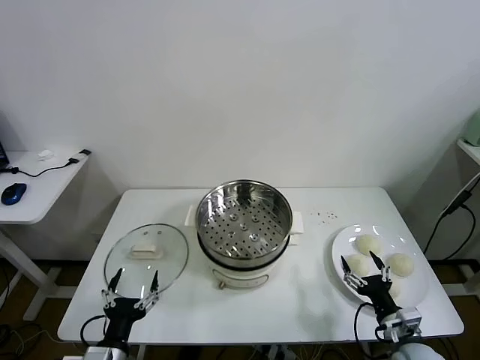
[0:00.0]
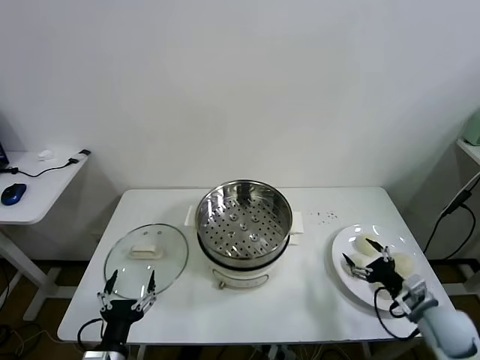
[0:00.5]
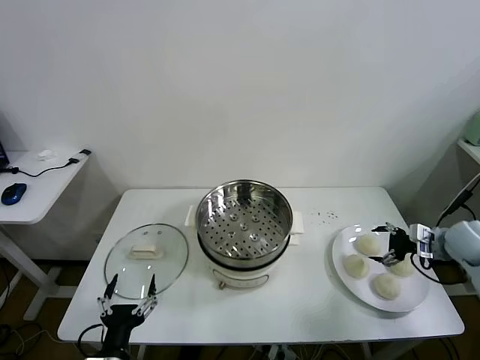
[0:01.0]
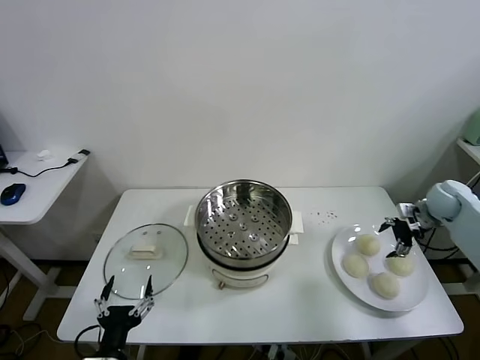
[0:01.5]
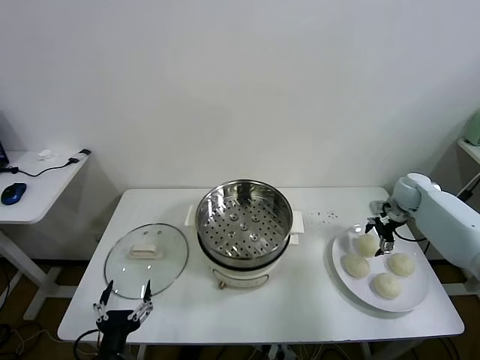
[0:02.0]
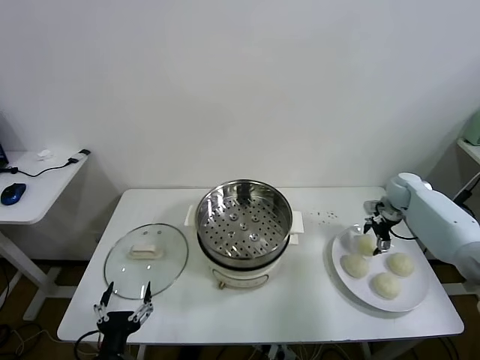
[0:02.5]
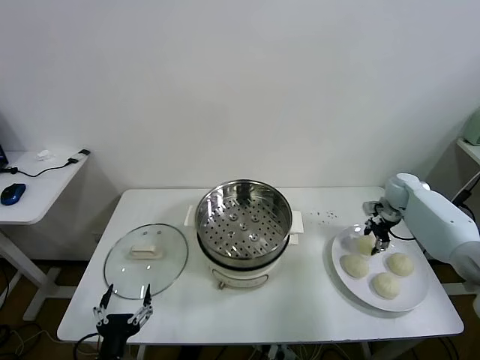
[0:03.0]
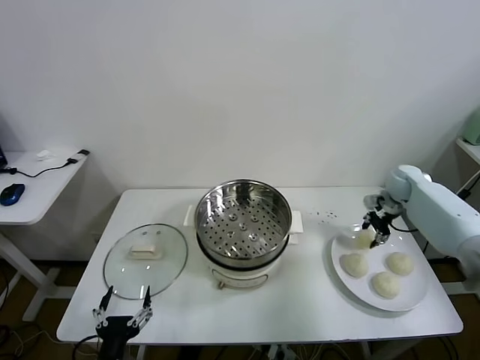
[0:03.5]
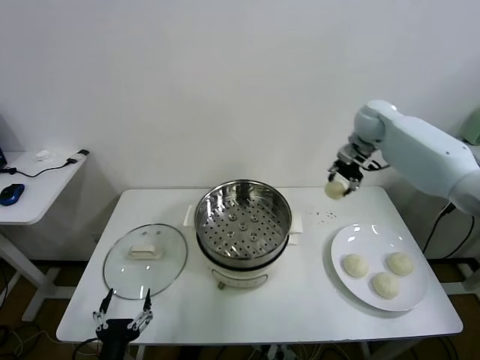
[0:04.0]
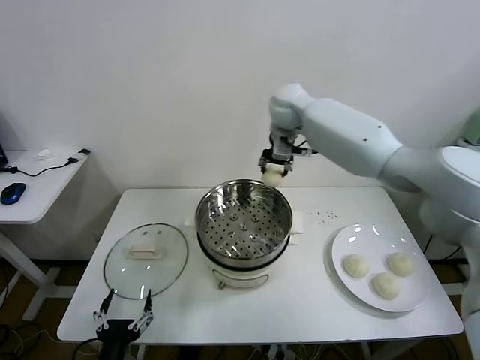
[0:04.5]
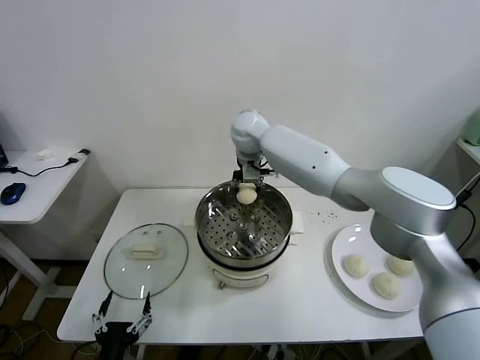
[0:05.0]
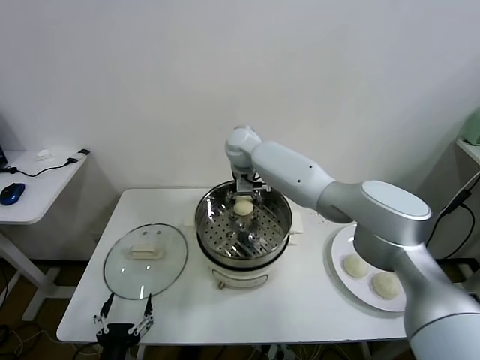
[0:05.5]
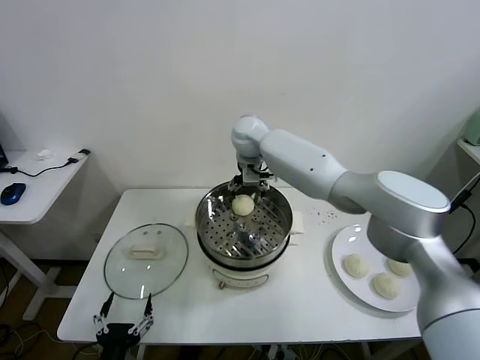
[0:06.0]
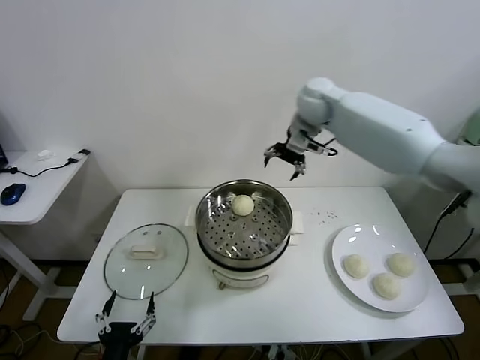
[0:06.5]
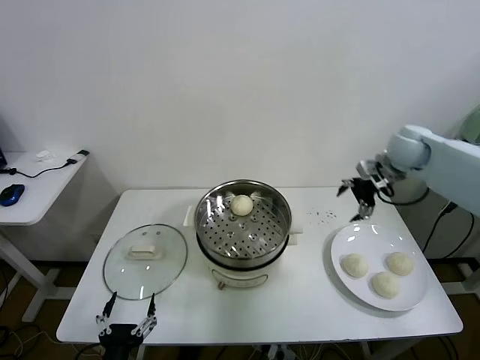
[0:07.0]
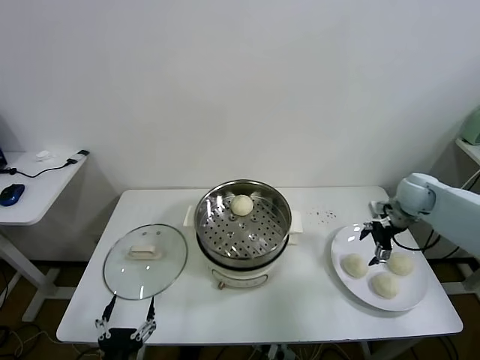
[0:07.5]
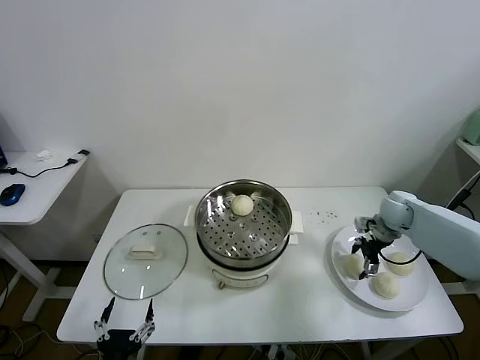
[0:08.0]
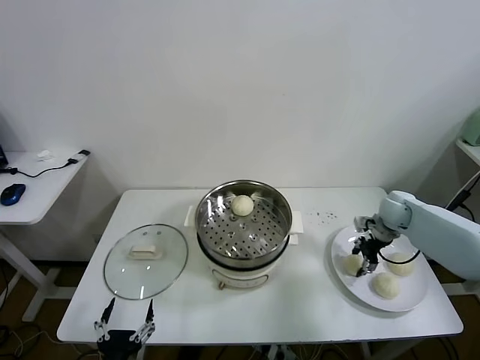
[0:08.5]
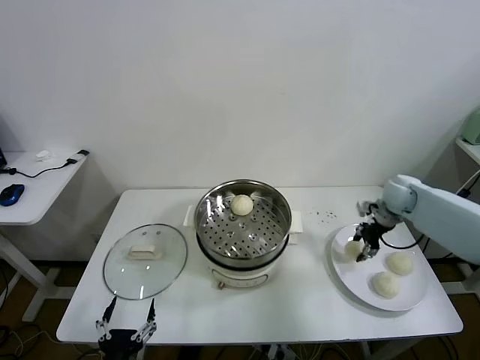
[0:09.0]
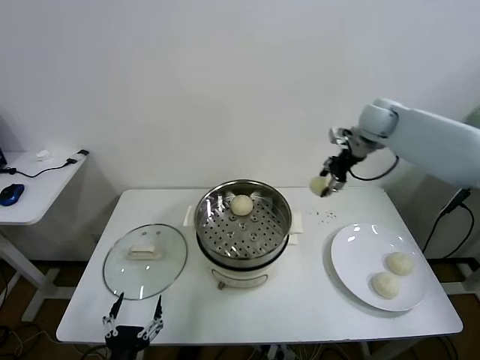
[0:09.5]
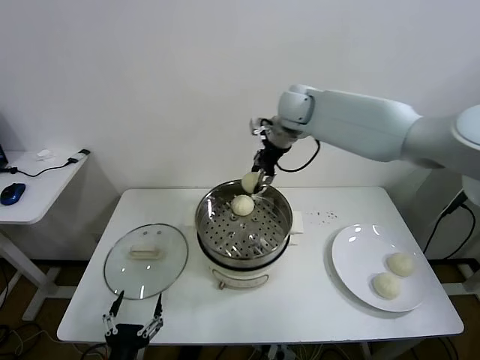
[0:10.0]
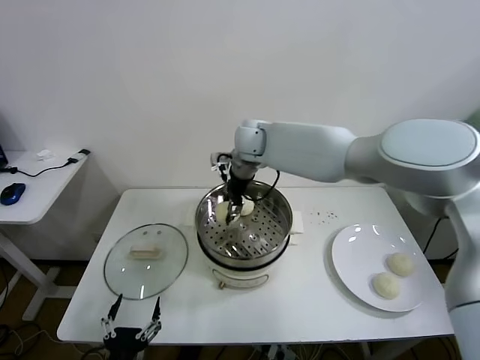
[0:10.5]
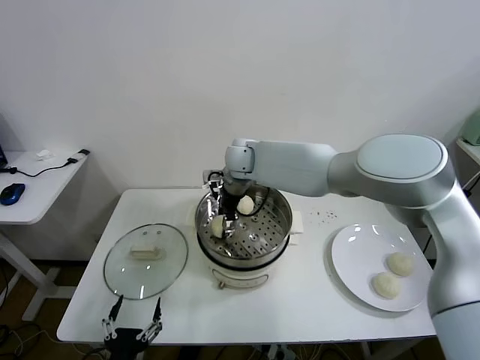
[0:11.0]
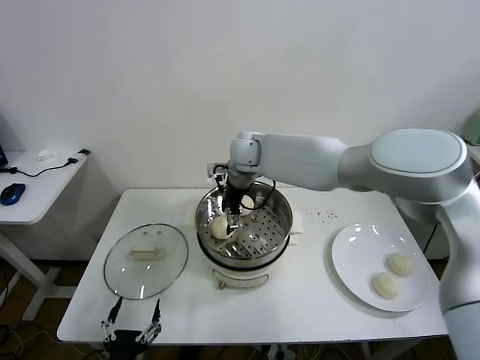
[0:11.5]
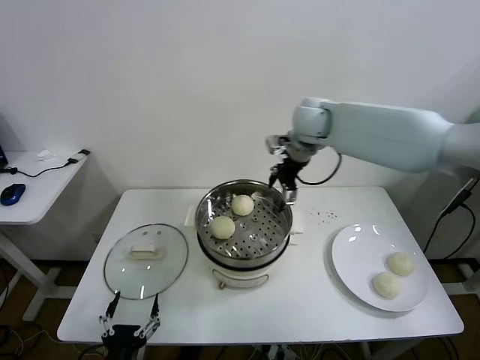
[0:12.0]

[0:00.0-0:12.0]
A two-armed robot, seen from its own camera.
Task of the whole recording: take steamed baozi put them in steamer.
Step, 0:00.0 to 0:02.5: Grasp the baozi in the plate with right gripper.
Step, 0:03.0 to 0:05.5: Place the baozi on the steamer with right gripper.
Step, 0:06.0 to 0:08.0: Grasp the baozi in the plate with right gripper.
Step, 0:09.0 to 0:11.0: Place the baozi on the steamer with right gripper.
0:02.0 to 0:04.0: The right gripper travels upward and to the left by roughly 30 cm, and closes up.
0:04.0 to 0:06.0: The right gripper shifts roughly 25 cm to the left, and opens.
0:06.0 to 0:08.0: The right gripper heads to the right and downward, covering about 40 cm.
0:08.0 to 0:10.0: The right gripper heads to the left and upward, covering about 40 cm, and closes up.
0:10.0 to 0:12.0: The right gripper heads to the right, covering some 10 cm, and opens.

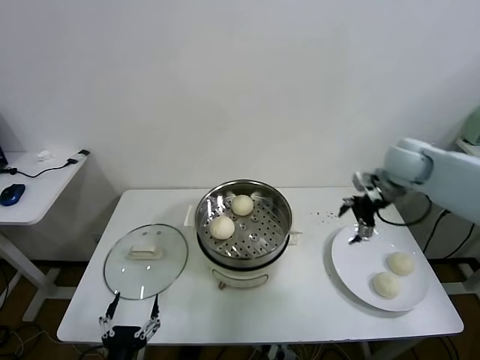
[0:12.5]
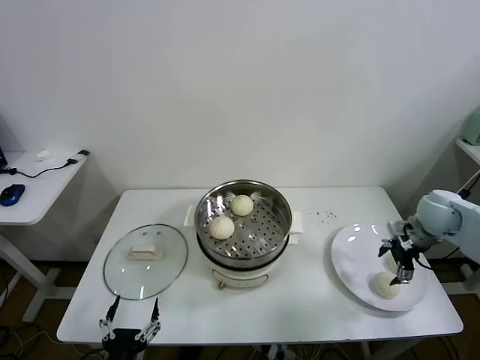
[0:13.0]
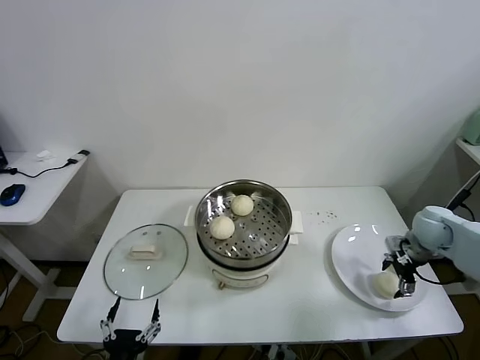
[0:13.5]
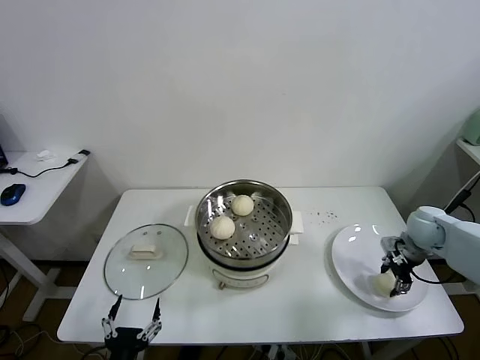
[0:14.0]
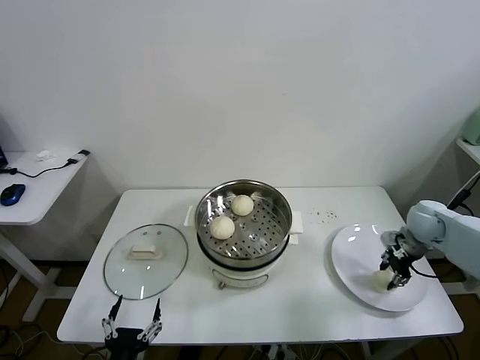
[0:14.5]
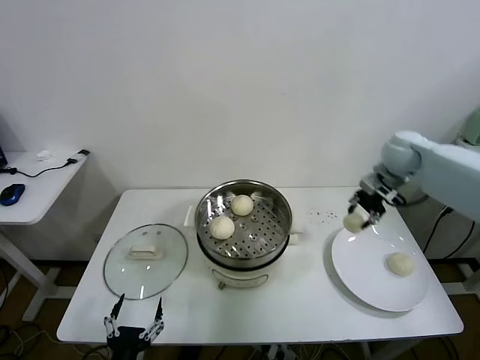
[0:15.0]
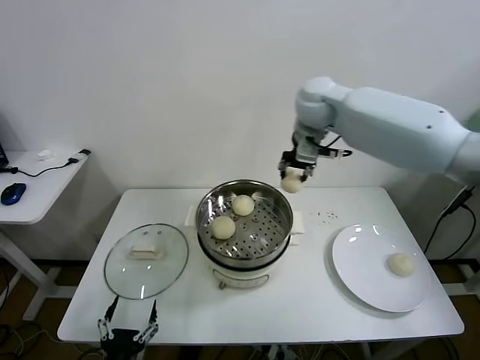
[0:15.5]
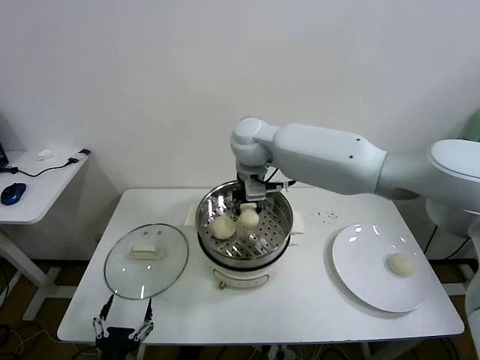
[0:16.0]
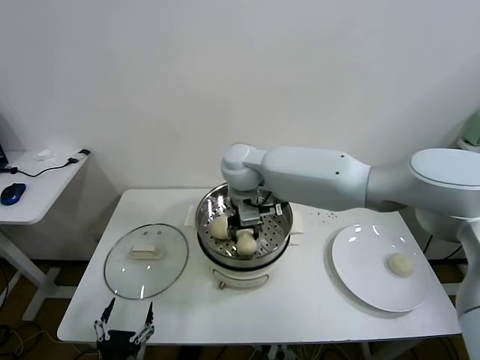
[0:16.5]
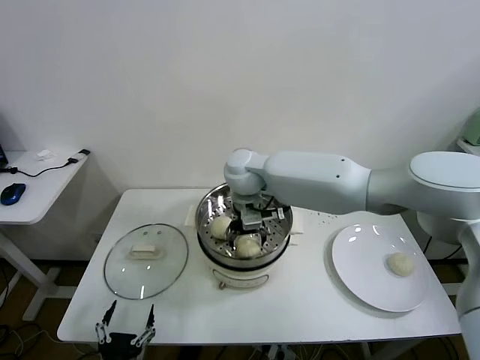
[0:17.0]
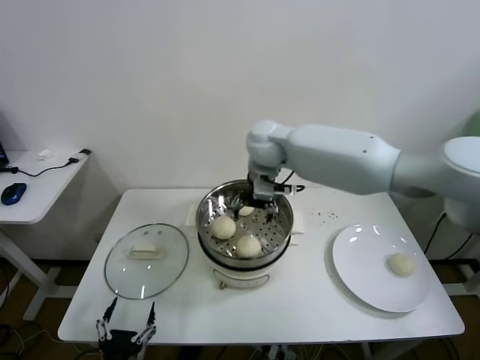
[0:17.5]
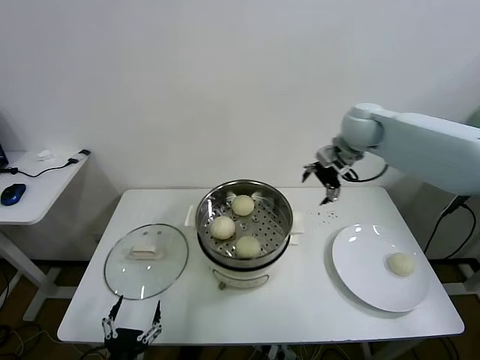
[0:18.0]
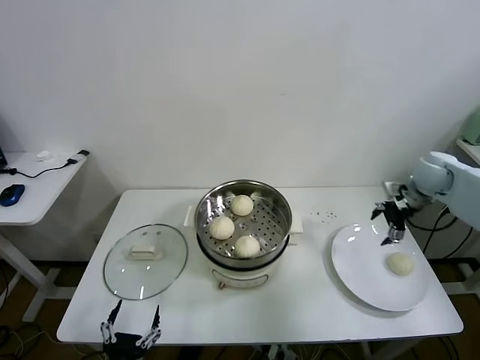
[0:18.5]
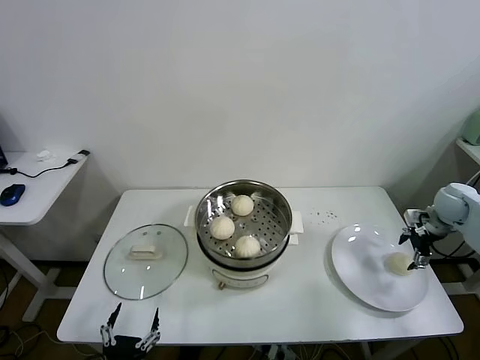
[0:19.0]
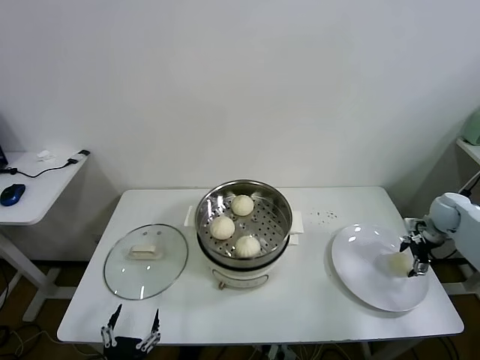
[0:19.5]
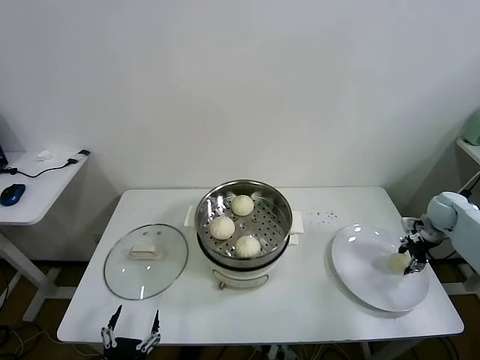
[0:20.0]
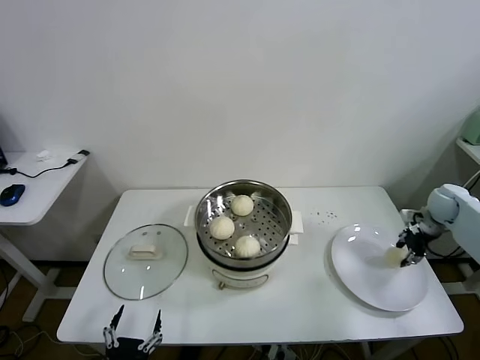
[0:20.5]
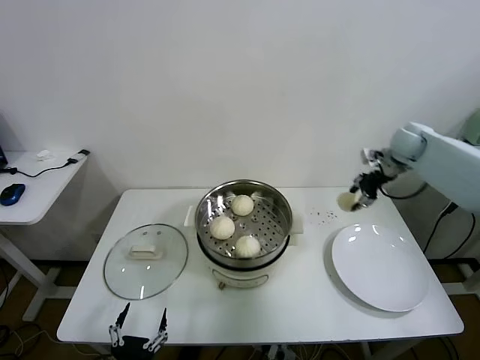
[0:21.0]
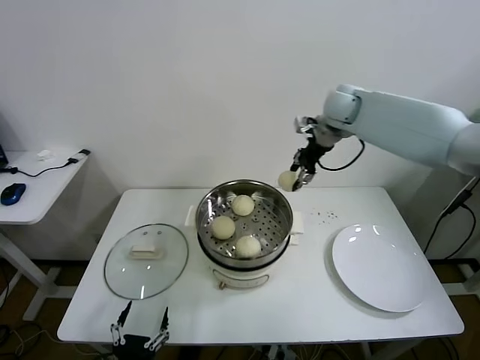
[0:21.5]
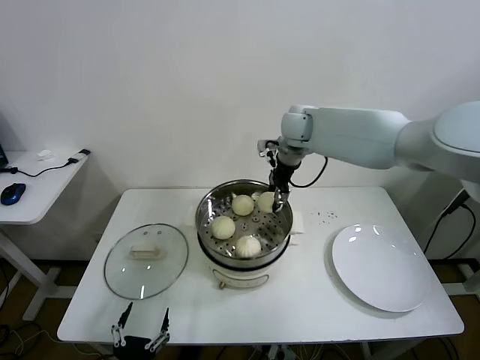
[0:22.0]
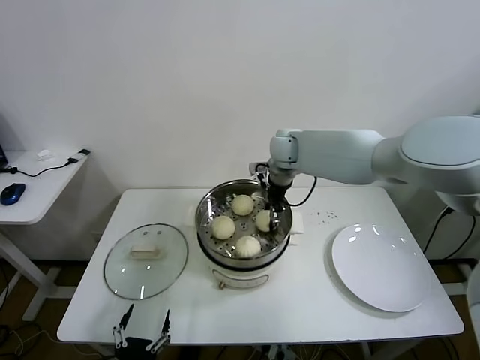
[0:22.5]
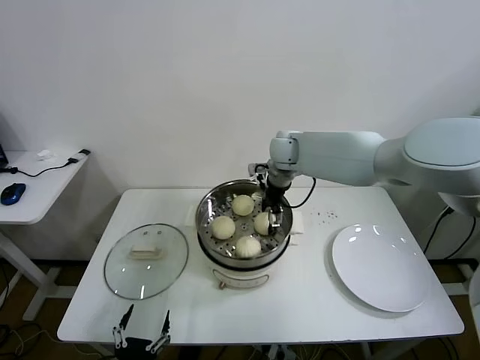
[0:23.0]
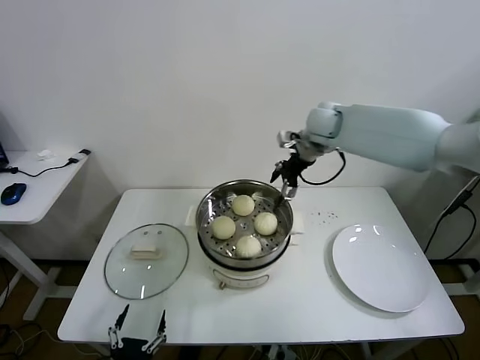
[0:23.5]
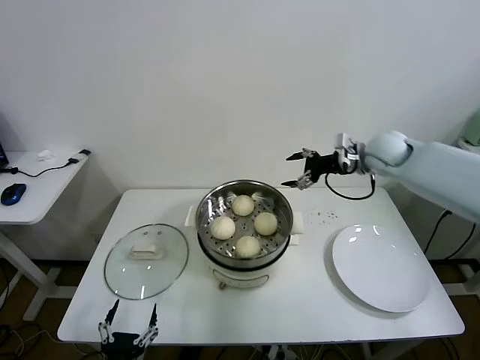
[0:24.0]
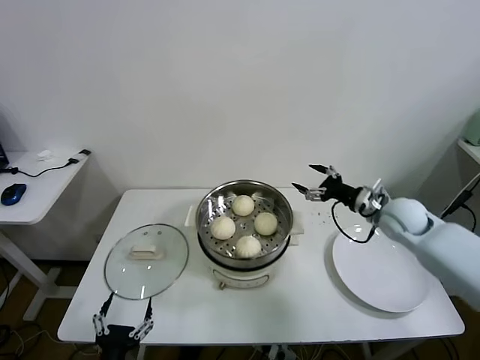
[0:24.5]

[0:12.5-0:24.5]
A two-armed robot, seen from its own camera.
Task of the whole recording: take steamed baozi put them in steamer.
Step, 0:14.5 to 0:17.0: Place the baozi on the steamer with right gripper.
Step, 0:17.5 to 0:20.0: Grasp the baozi in the plate with right gripper.
Step, 0:20.5 to 0:23.0: Place the baozi on the steamer with right gripper.
0:12.5 to 0:14.5: The right gripper travels downward and to the right by about 15 cm, and closes its fingers.
0:14.5 to 0:16.5: The right gripper heads to the left, covering some 50 cm.
0:16.5 to 0:18.5: The right gripper shifts about 50 cm to the right, and opens up.
0:18.5 to 0:20.5: The right gripper heads downward and to the right, covering about 10 cm, and closes its fingers.
0:20.5 to 0:22.5: The right gripper moves to the left, approximately 40 cm.
0:22.5 to 0:24.5: The right gripper goes approximately 30 cm to the right and backward, and opens.

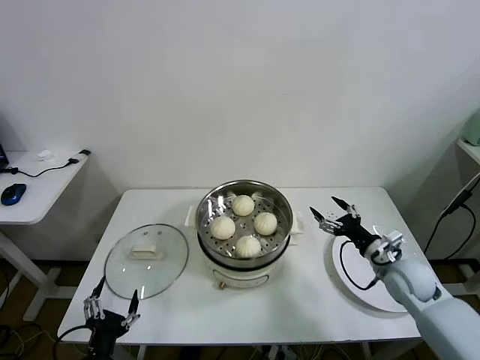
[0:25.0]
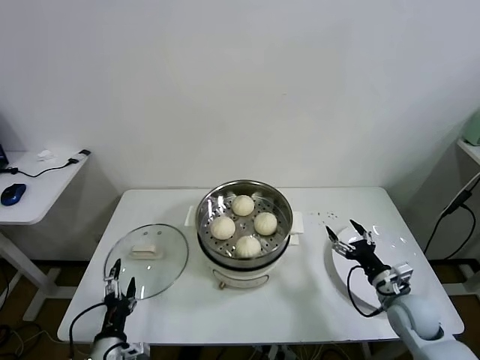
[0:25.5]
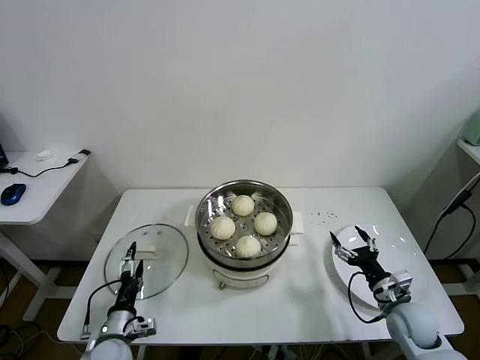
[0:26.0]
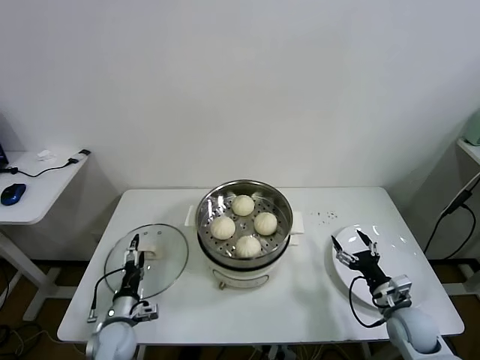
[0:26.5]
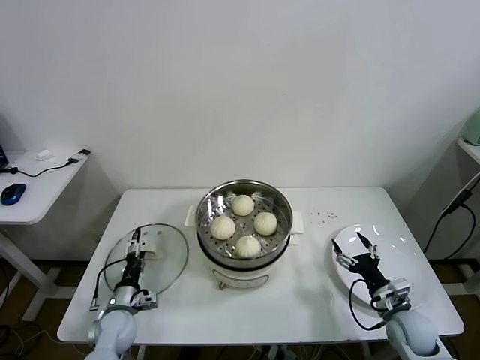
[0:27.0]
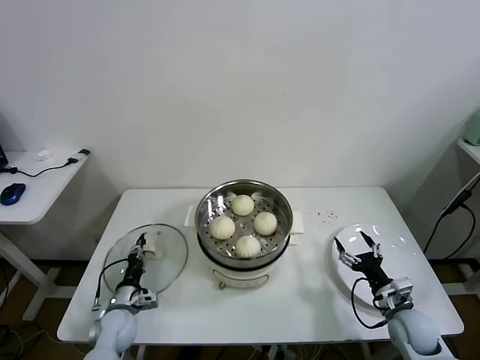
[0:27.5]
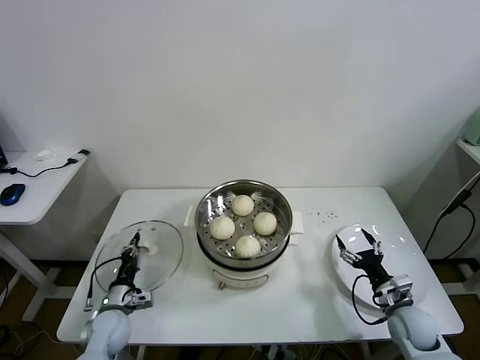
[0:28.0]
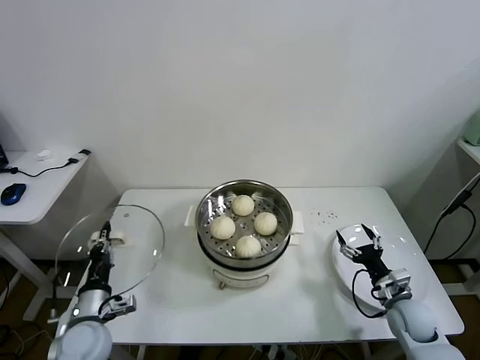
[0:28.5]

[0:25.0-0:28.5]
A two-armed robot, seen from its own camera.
Task of the whole recording: take steamed baozi put them in steamer.
Step, 0:25.0 to 0:27.5: Grasp the pot lid with left gripper.
0:25.0 to 0:27.0: The left gripper travels forward and downward by about 25 cm. Meanwhile the right gripper goes some 15 cm downward and backward.
0:27.0 to 0:28.5: The left gripper moves upward and backward, approximately 10 cm, and closes its fingers.
